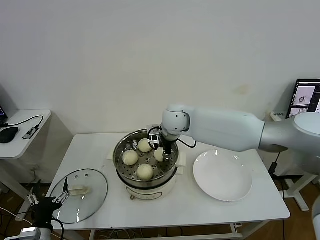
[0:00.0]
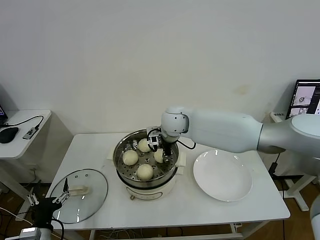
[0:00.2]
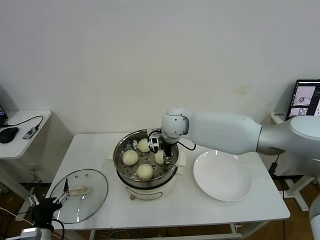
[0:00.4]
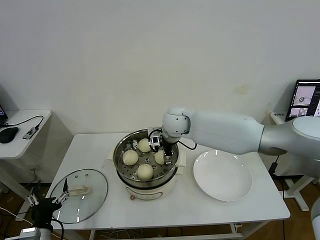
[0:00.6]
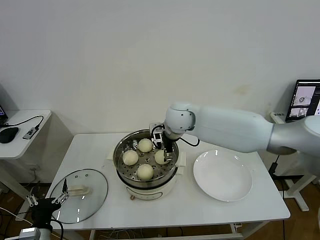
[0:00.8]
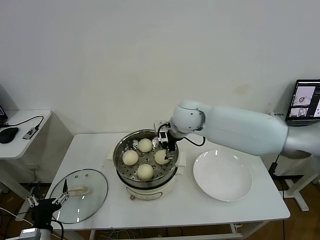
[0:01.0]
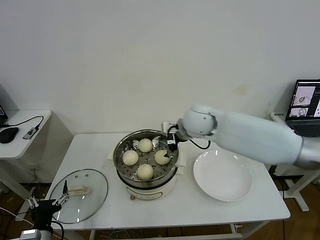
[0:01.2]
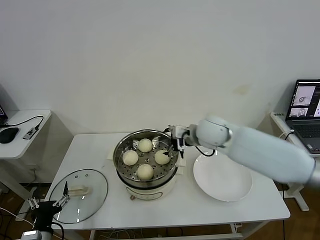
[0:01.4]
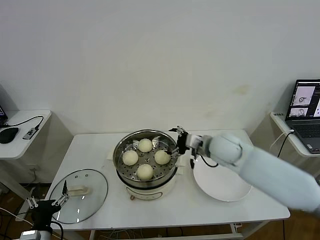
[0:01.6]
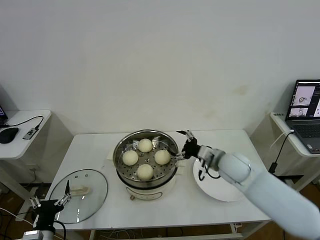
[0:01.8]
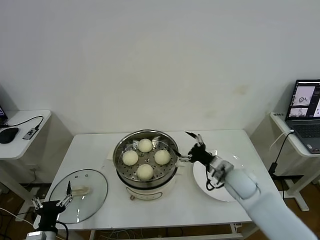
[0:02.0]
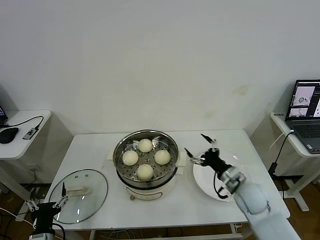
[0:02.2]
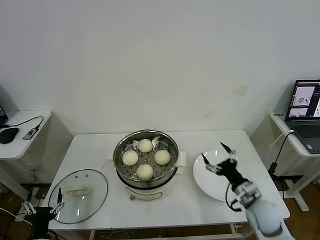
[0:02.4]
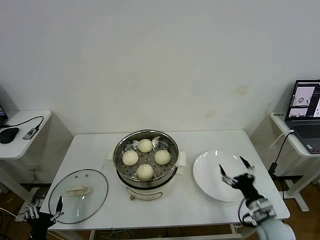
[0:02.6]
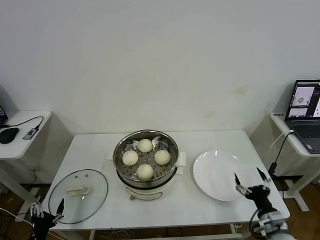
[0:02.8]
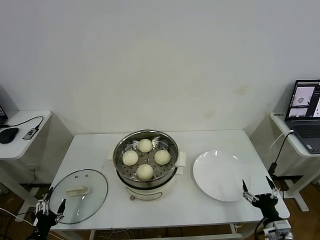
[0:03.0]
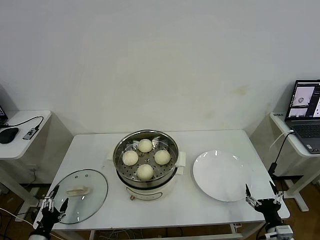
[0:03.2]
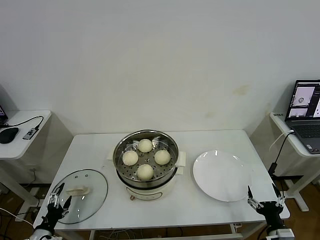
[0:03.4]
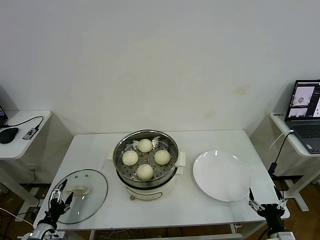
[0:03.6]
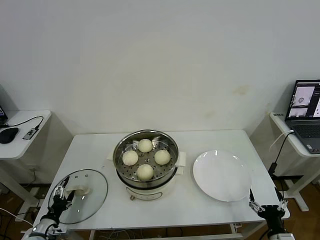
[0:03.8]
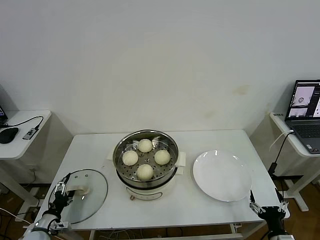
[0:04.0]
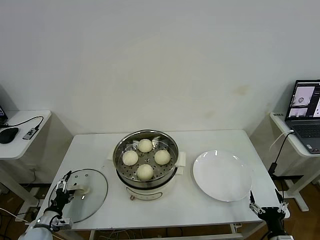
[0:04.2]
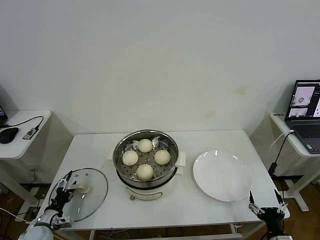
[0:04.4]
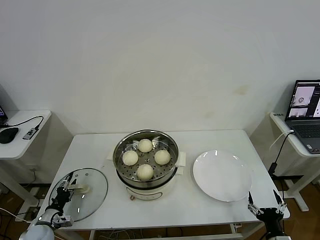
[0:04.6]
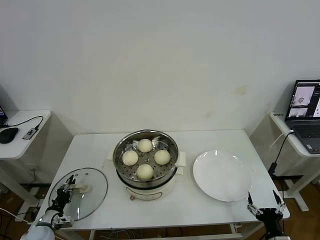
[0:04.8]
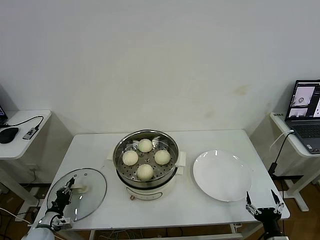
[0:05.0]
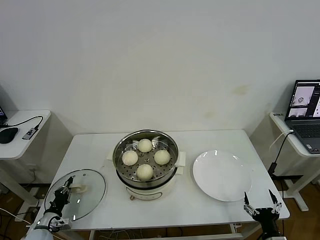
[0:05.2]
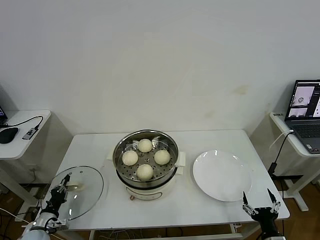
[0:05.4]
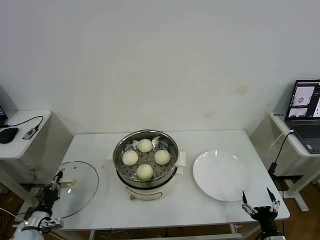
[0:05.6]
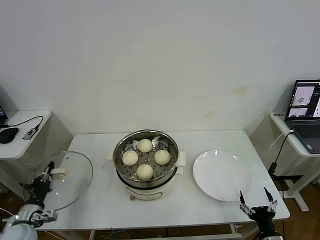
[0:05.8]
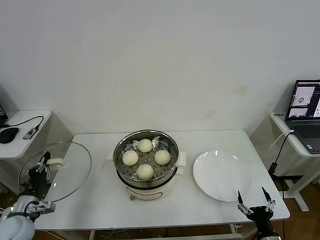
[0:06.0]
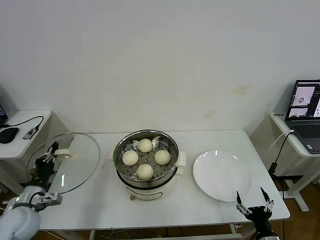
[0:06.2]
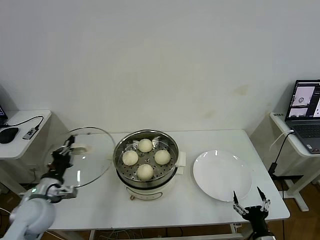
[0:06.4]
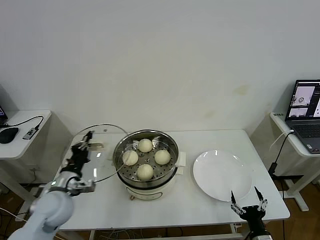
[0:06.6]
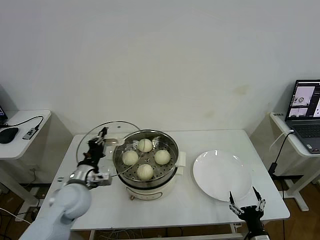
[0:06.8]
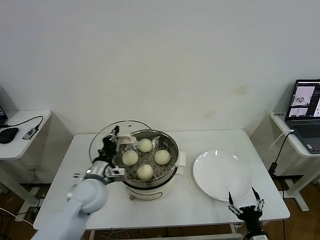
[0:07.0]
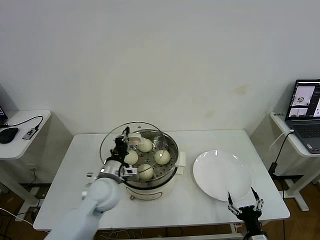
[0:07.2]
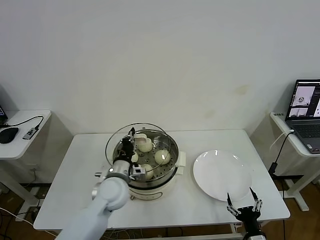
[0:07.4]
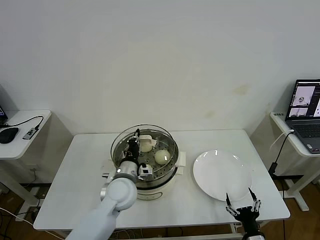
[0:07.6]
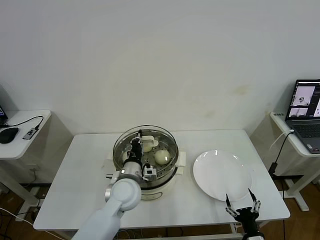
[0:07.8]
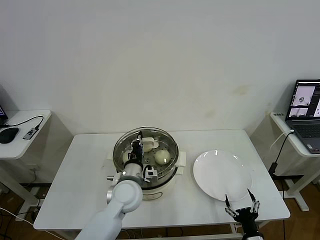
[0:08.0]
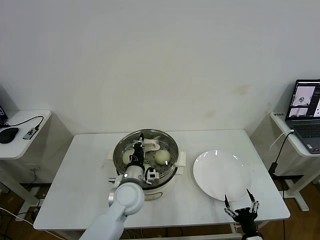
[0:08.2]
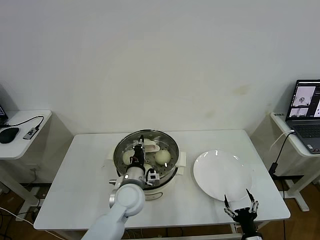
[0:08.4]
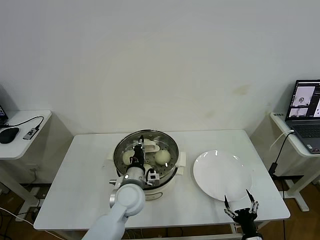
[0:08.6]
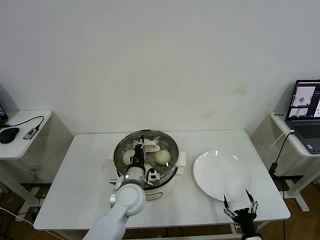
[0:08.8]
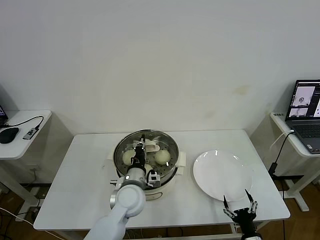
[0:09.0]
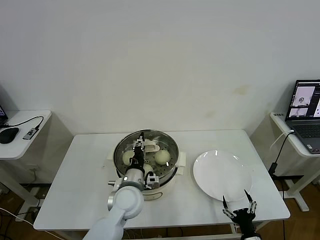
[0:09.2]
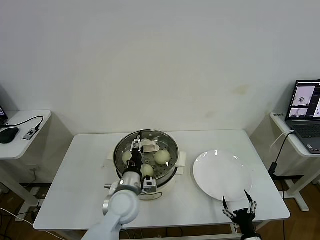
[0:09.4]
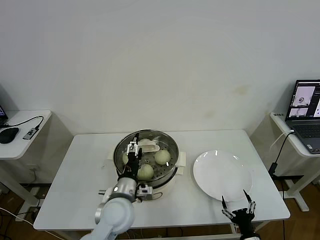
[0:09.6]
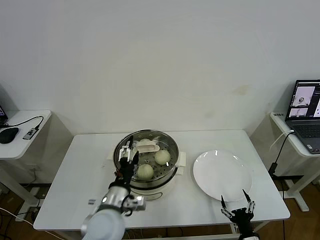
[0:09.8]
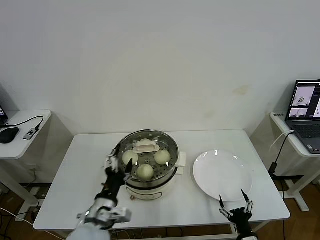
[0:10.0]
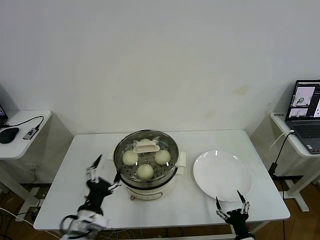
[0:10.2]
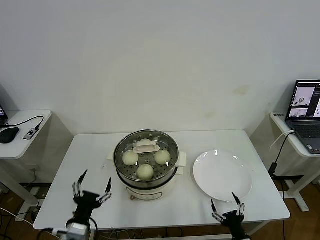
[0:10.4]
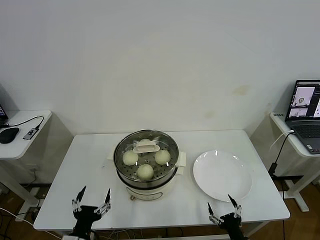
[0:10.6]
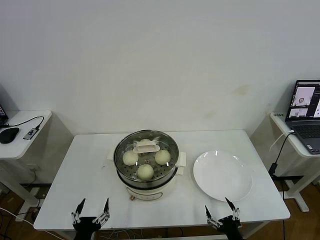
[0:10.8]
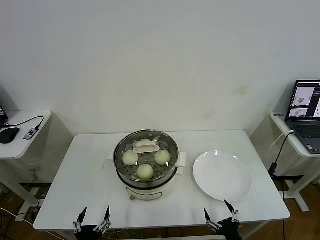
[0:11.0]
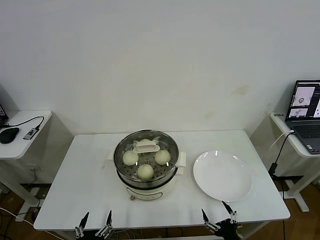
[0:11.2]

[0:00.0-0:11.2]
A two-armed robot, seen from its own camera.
Task of the whole recording: take steamed baozi put them in steamer then cover it.
Step, 0:01.0 to 0:05.2: Grasp the pot lid with left gripper.
Step, 0:05.4 to 0:09.8: Place the pot lid on the steamer with left gripper.
0:00.0 to 0:01.6: The right gripper shifts approximately 15 cm to the right and backward, and opens.
0:01.6 to 0:03.2: The right gripper travels backward, downward and to the right by roughly 40 cm; the left gripper is displaced to the left and downward by approximately 10 cm.
0:03.2 to 0:04.8: The left gripper moves forward, some 10 cm, and closes up.
0:04.8 to 0:06.4: The left gripper moves upward, approximately 20 cm.
0:06.4 to 0:08.0: The left gripper shifts some 25 cm to the right.
0:08.0 to 0:09.6: The left gripper moves backward, some 5 cm, and opens up.
0:09.6 to 0:11.2: The right gripper shifts by about 5 cm. Meanwhile the left gripper moves backward, to the left and downward, roughly 25 cm.
